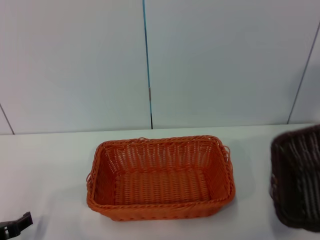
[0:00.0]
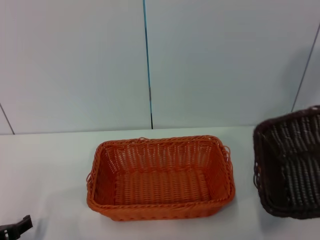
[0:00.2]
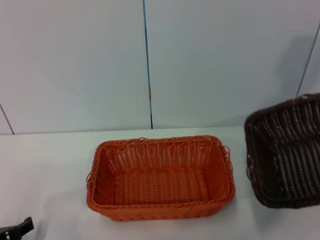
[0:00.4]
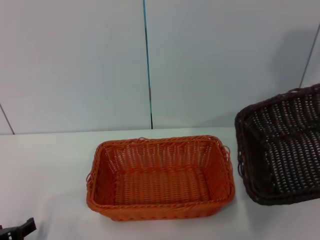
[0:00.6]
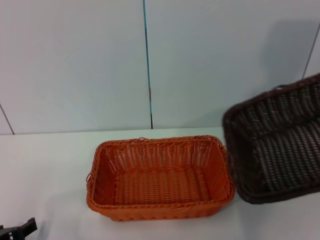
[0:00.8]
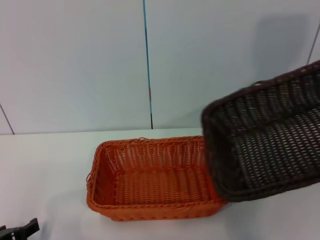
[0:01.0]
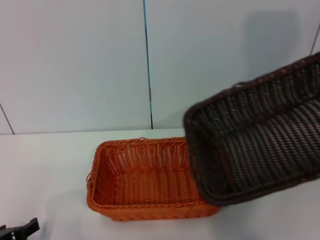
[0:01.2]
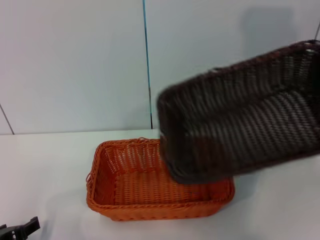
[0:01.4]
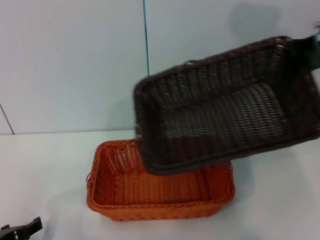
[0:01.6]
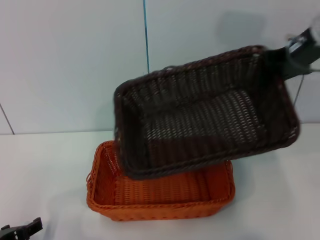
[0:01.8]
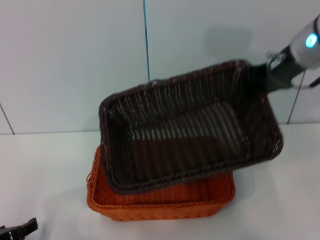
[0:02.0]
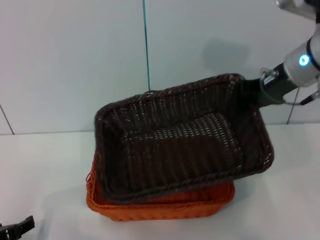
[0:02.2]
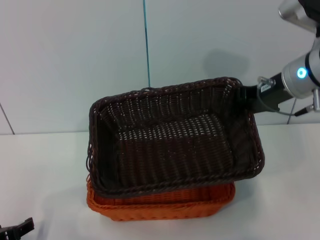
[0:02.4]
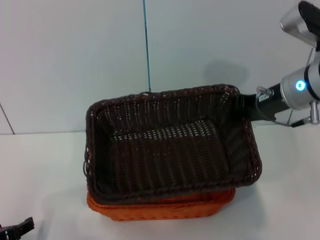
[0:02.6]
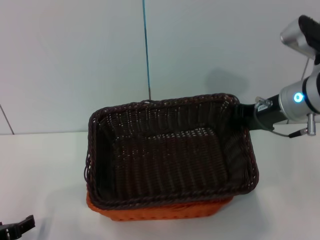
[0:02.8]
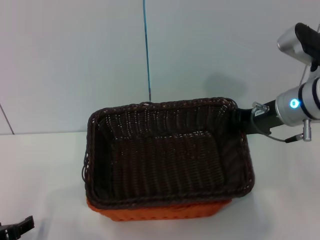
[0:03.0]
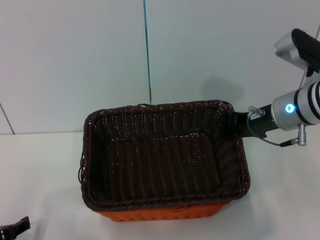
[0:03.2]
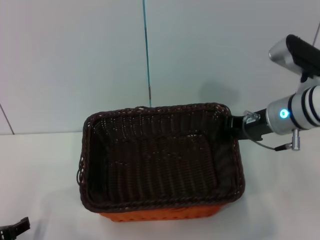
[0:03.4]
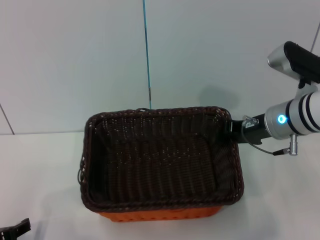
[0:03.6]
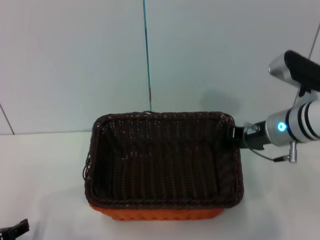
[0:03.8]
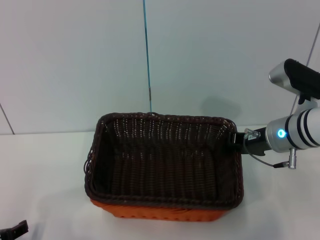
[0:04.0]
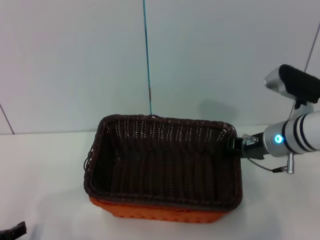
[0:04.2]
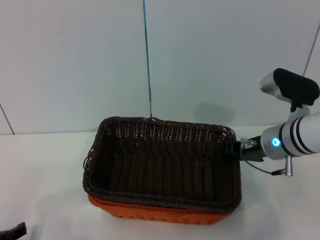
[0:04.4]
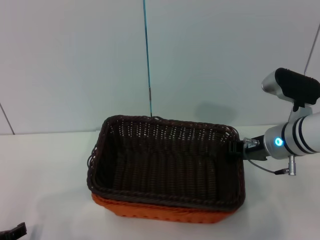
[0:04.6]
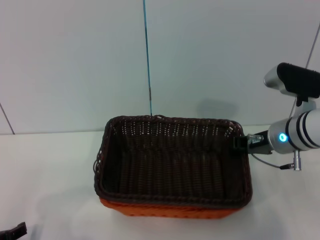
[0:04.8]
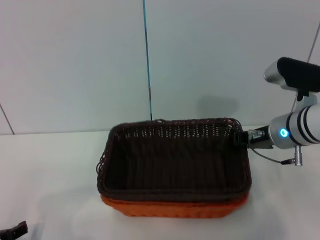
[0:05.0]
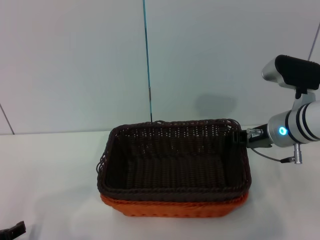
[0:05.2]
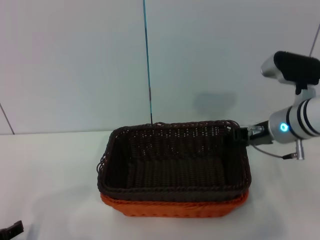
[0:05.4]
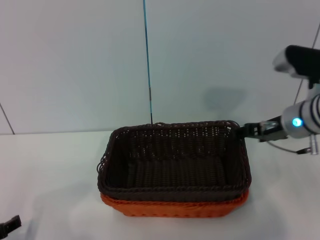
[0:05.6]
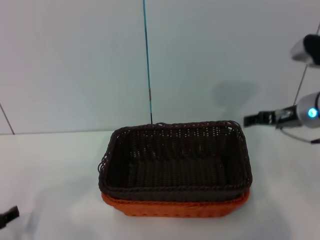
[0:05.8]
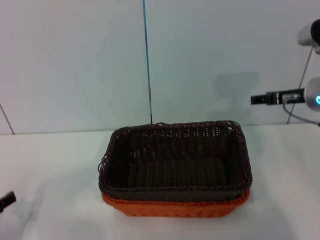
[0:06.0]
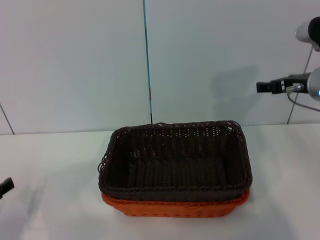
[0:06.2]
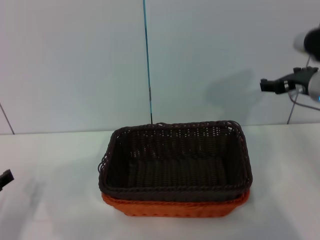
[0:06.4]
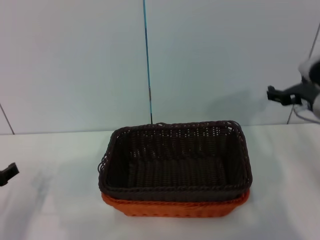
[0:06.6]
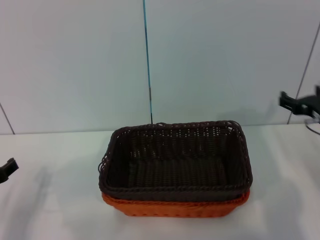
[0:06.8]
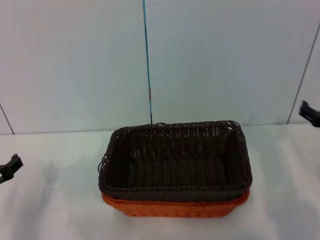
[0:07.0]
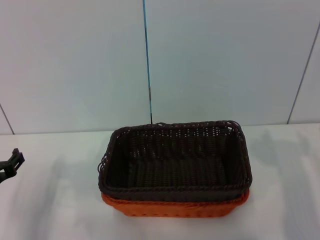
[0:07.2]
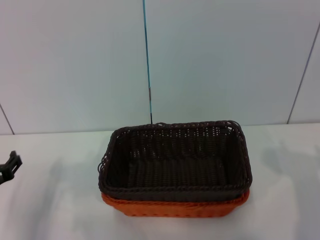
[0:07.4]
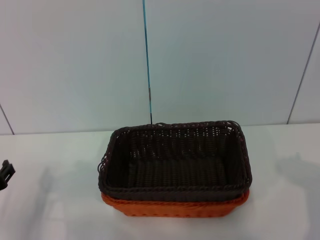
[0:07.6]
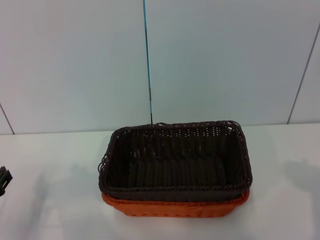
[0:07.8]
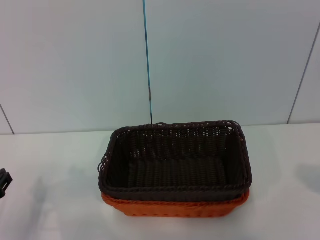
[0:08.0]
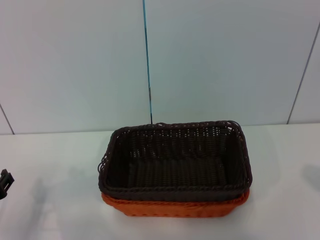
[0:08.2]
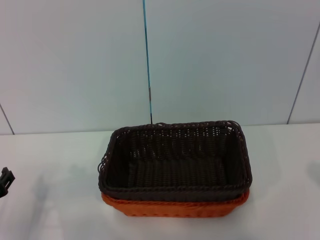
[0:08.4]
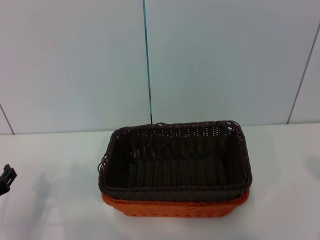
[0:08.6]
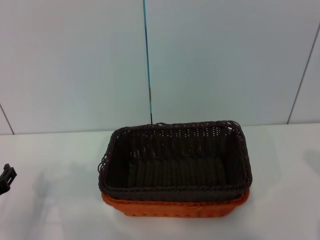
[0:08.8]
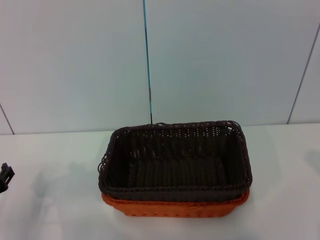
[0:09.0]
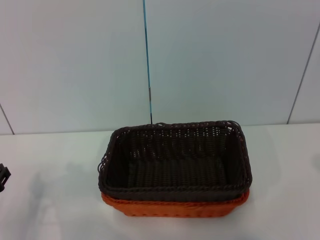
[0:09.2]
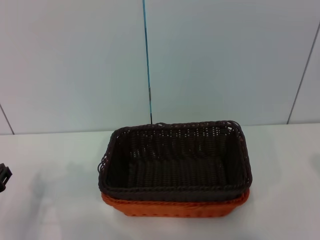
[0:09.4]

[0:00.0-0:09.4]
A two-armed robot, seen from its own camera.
Step, 0:00.0 to 0:05.2: Place the dark basket on the light basket with the right gripper.
0:00.0 to 0:01.6: The right gripper is displaced to the left and forward by some 20 cm.
0:01.6 to 0:03.2: The right gripper moves downward, about 15 cm.
0:03.2 to 0:04.8: The right gripper travels downward by some 5 cm.
0:04.8 to 0:06.2: The right gripper is displaced upward by about 5 cm, and opens its fingers.
0:06.2 to 0:07.8: The right gripper shifts approximately 25 cm backward, downward and to the right; the left gripper ends up some 5 cm from where it was.
